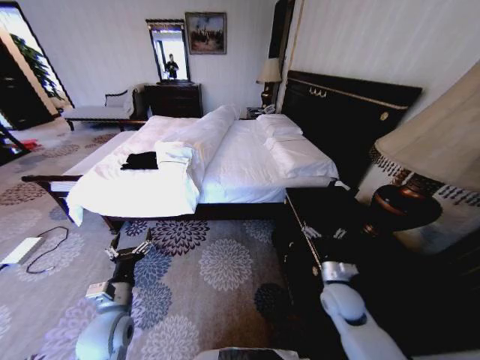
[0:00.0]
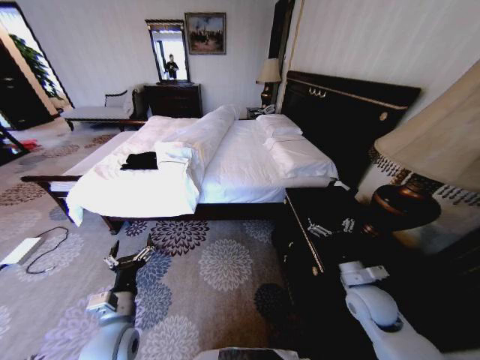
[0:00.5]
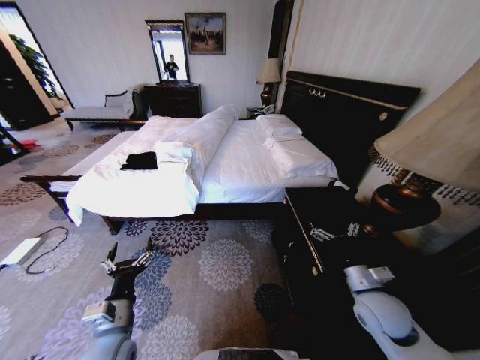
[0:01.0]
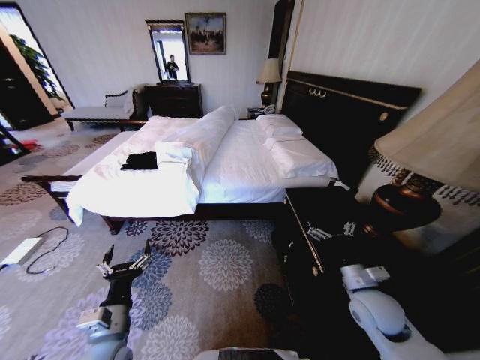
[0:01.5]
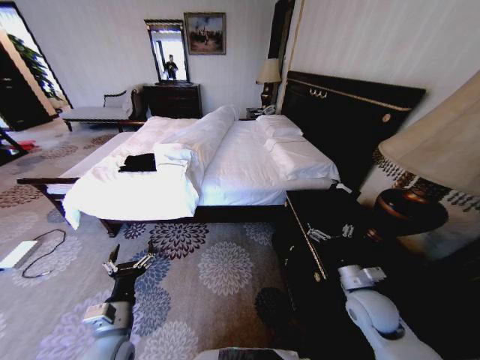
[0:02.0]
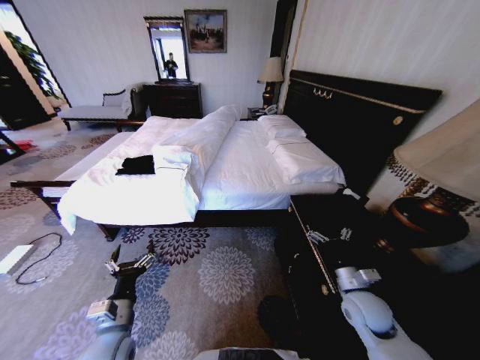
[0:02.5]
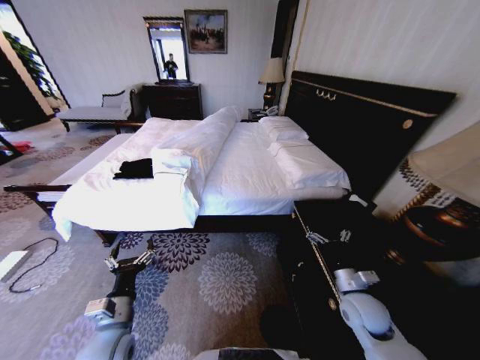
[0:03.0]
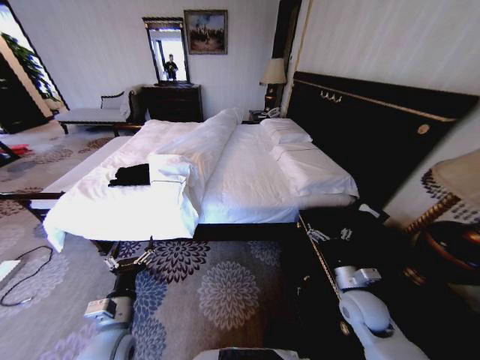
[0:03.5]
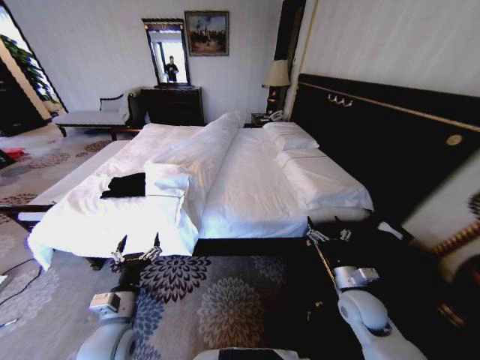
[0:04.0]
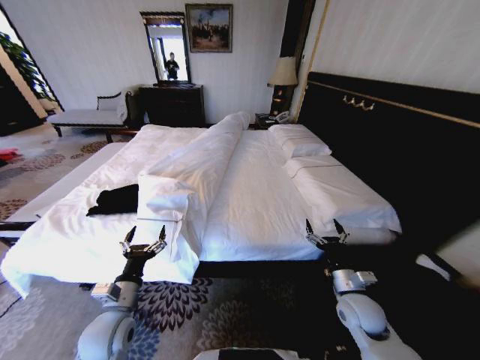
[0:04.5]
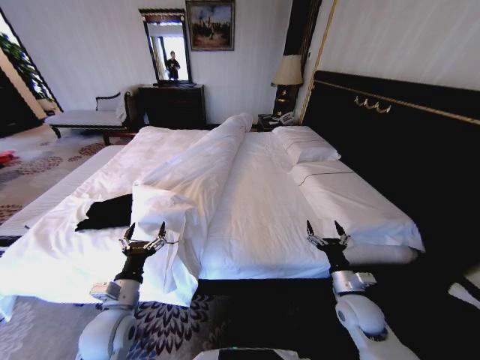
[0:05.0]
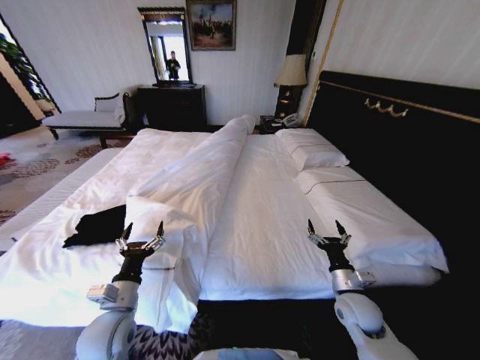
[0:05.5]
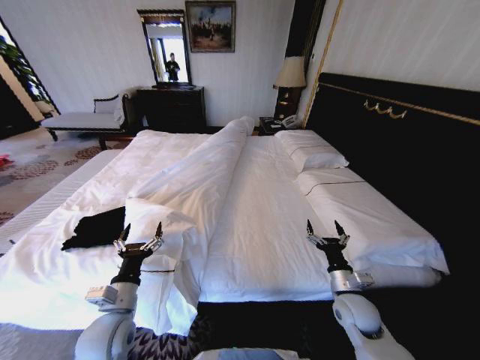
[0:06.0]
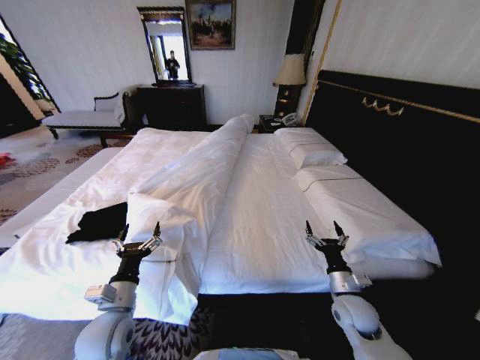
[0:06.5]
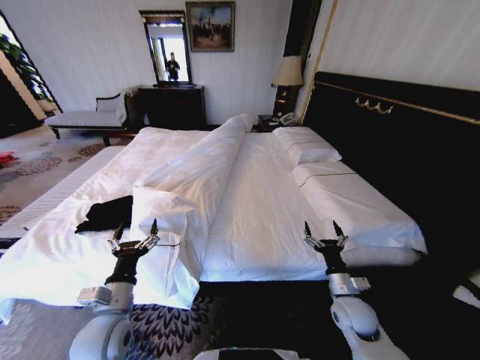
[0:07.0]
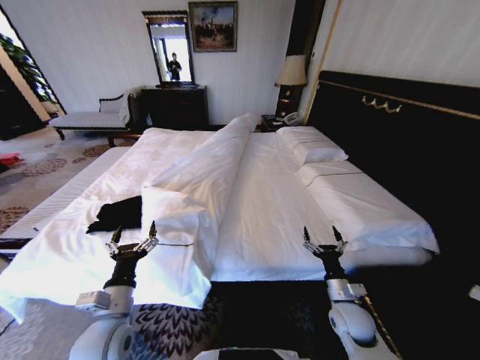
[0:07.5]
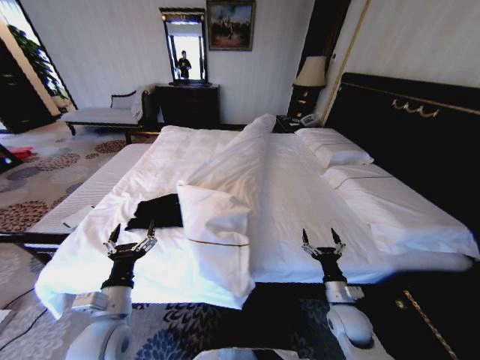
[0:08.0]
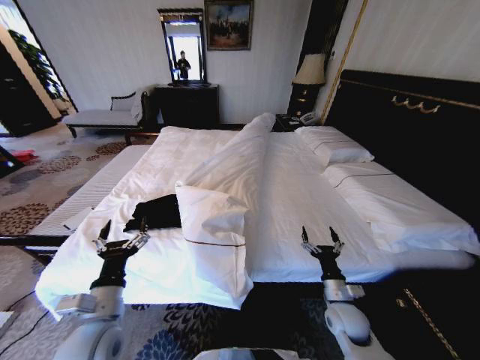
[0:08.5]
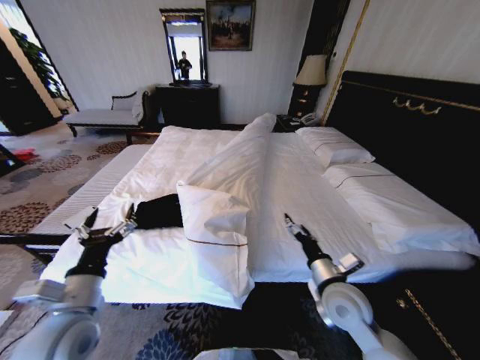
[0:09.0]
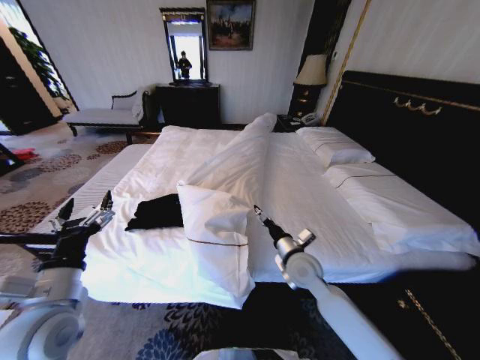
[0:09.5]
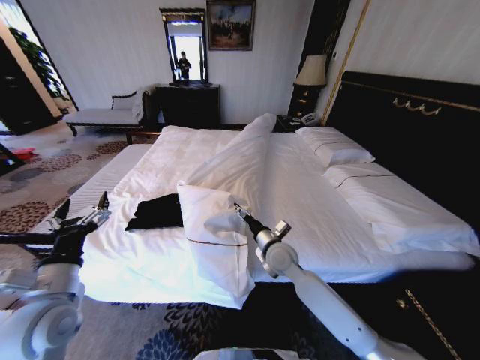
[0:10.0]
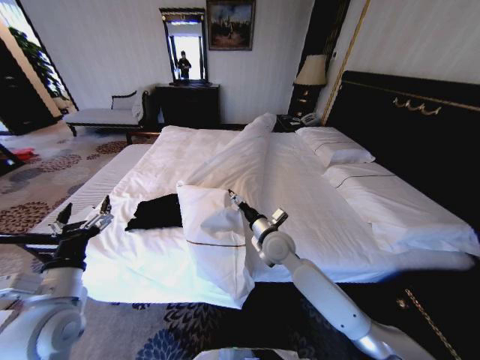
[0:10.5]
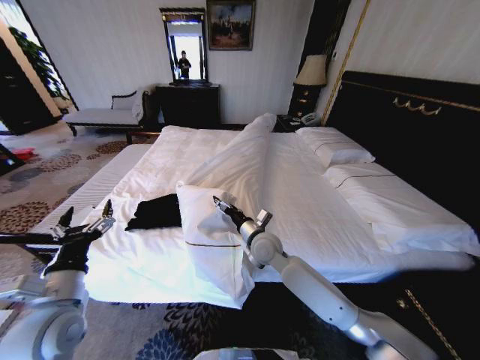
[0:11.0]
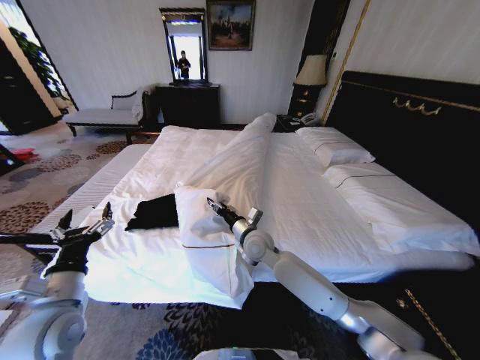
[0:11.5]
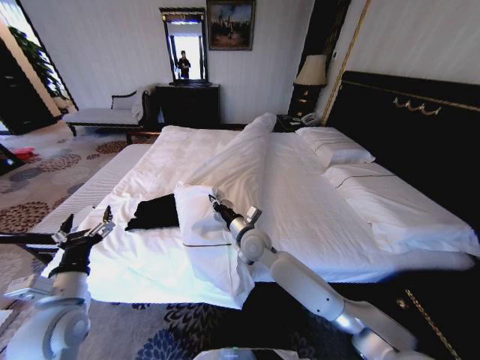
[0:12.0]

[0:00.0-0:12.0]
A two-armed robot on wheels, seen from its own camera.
Task of the whole recording: Fold the clothes on the bed.
0:08.0 to 0:10.0: The right gripper travels to the left, forward and upward by approximately 25 cm. The left gripper goes roughly 10 cm upward and to the left.
0:10.0 to 0:12.0: The right gripper is displaced to the left by approximately 10 cm, and closes.

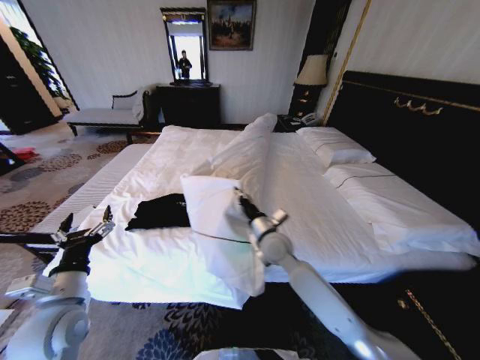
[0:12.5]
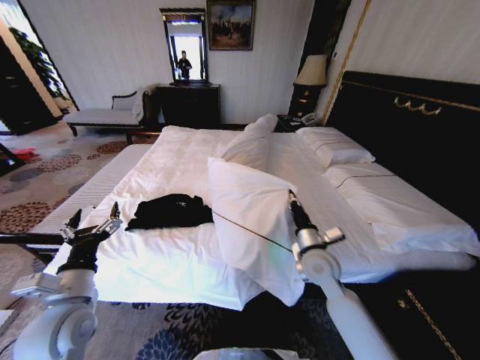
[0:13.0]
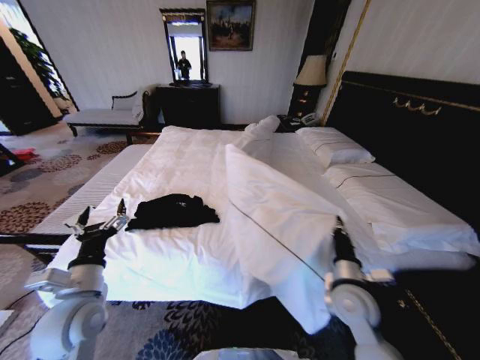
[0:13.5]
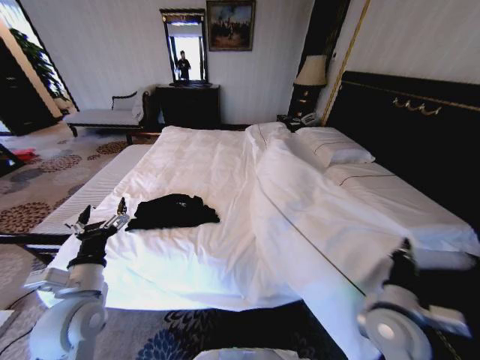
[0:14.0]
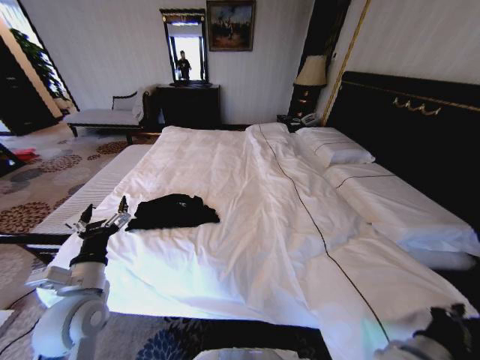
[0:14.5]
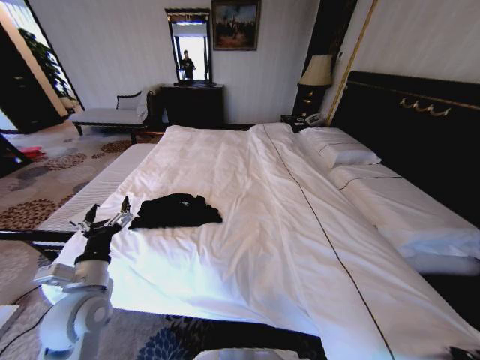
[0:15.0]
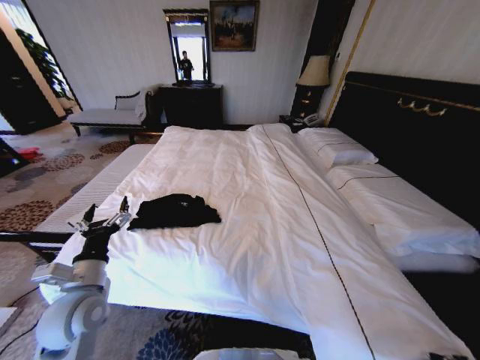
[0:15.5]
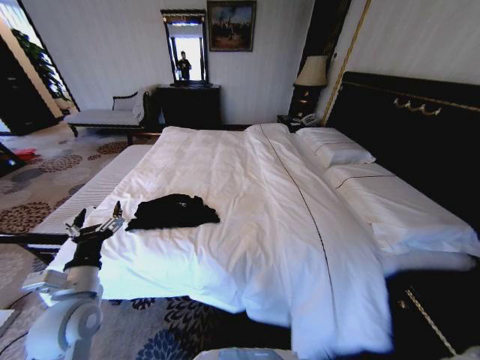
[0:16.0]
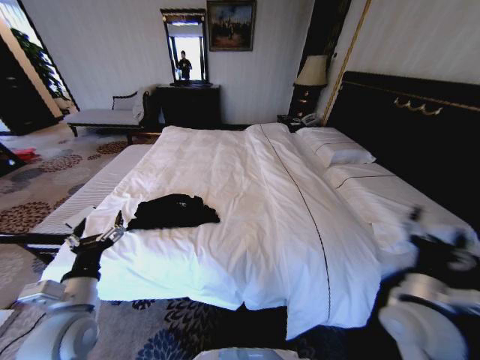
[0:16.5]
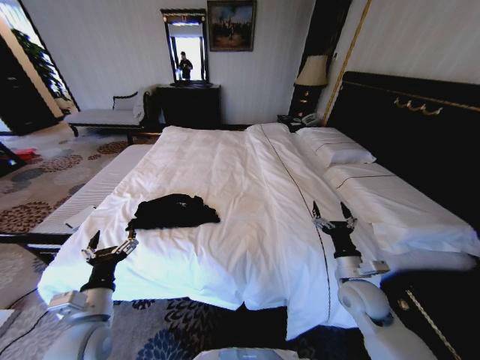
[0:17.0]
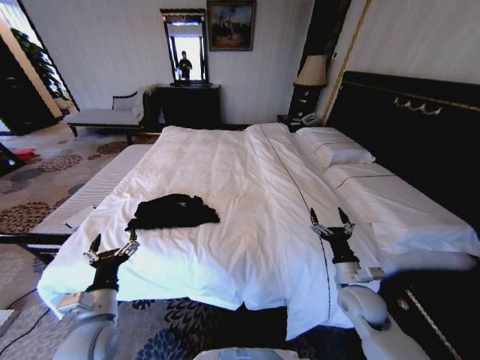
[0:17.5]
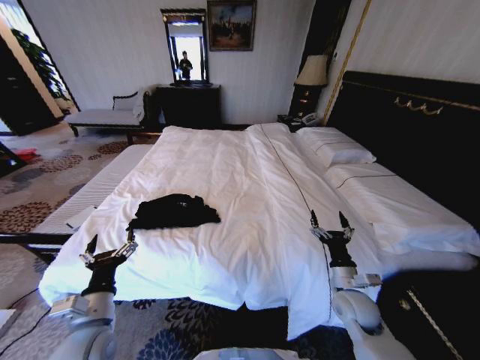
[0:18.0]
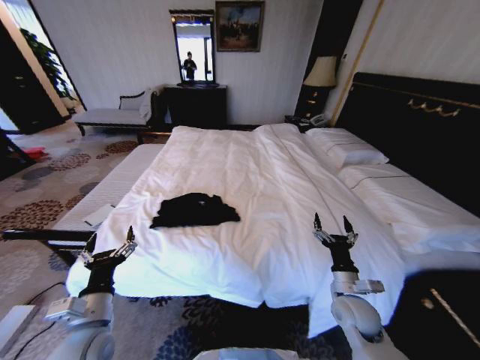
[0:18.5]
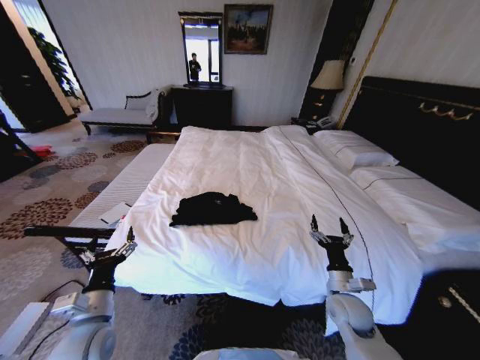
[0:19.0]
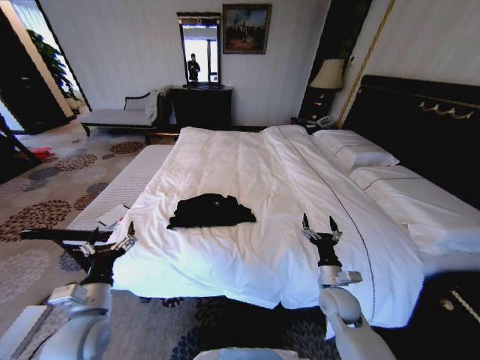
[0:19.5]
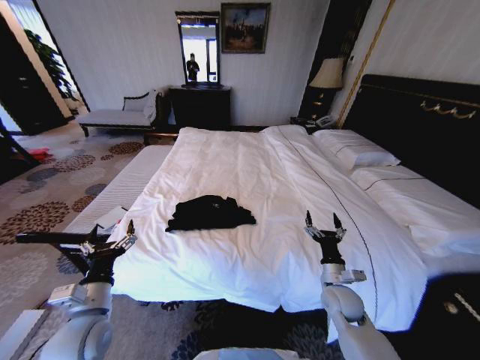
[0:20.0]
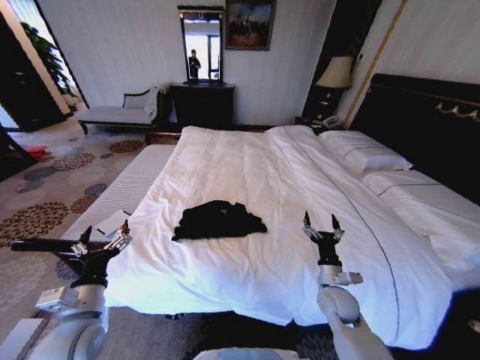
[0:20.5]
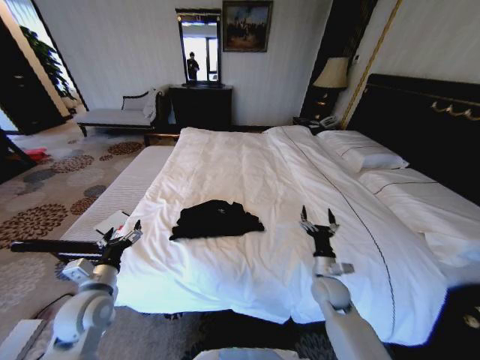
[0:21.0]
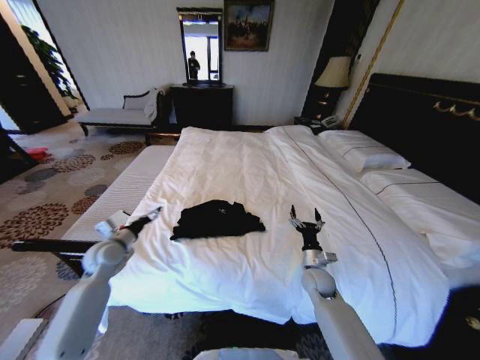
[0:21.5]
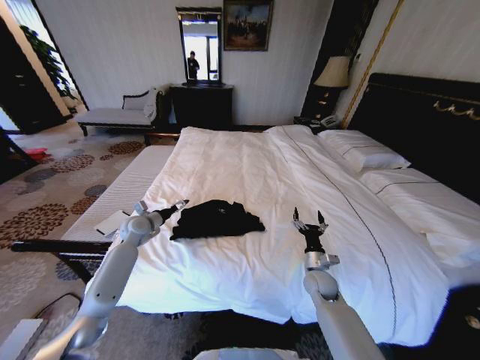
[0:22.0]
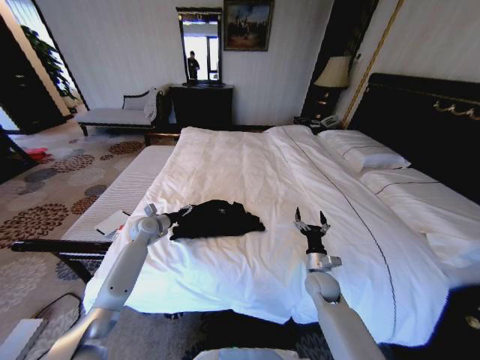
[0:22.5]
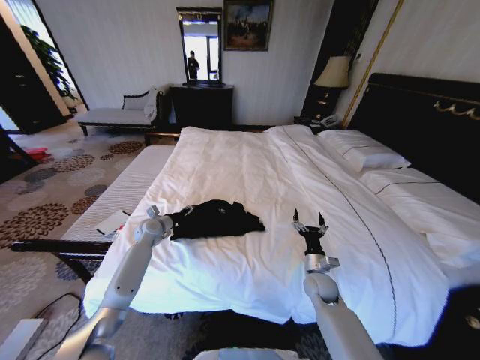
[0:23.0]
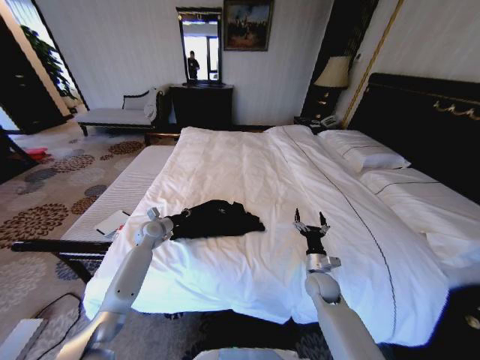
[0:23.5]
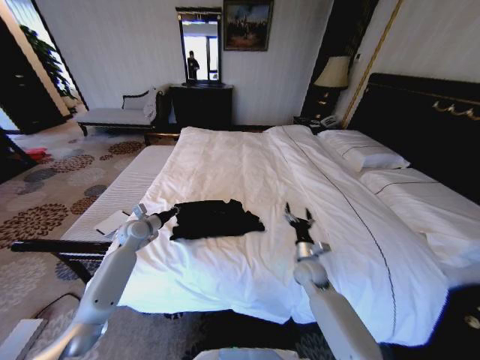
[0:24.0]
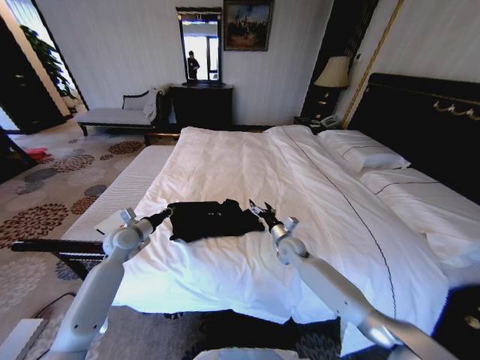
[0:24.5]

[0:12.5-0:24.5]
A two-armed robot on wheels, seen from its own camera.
Task of the whole recording: Fold the clothes on the bed.
0:12.5 to 0:14.5: The right gripper goes approximately 35 cm backward and to the right.
0:14.5 to 0:16.5: The right gripper is displaced upward and forward by about 10 cm, and opens its fingers.
0:16.5 to 0:18.5: The right gripper shifts approximately 10 cm downward.
0:20.5 to 0:22.5: The left gripper is displaced forward by some 35 cm. The right gripper travels forward by about 5 cm.
0:22.5 to 0:24.5: The left gripper travels backward by about 10 cm, and closes; the right gripper travels forward and to the left by some 15 cm.

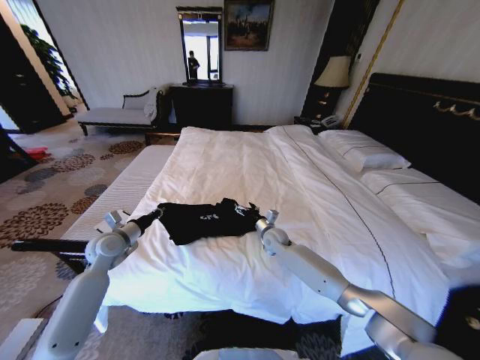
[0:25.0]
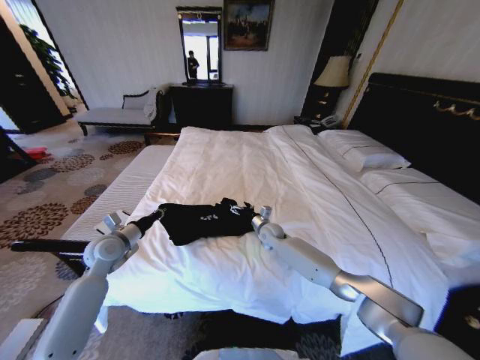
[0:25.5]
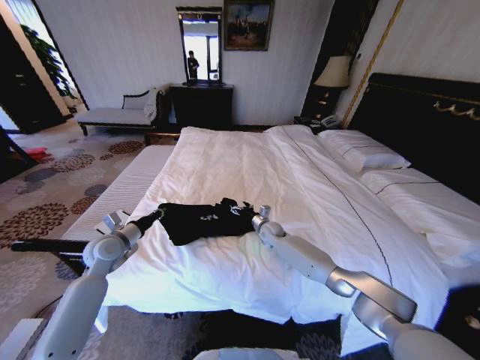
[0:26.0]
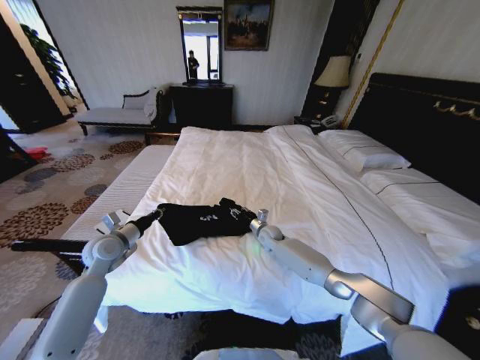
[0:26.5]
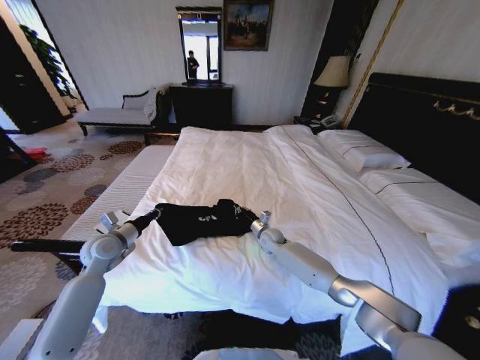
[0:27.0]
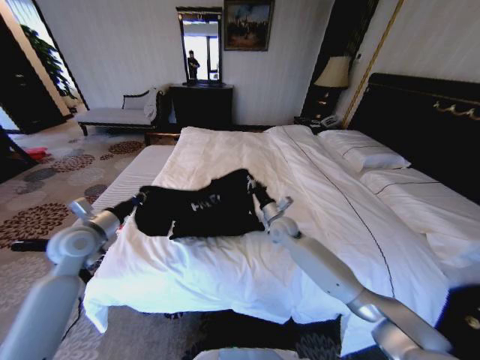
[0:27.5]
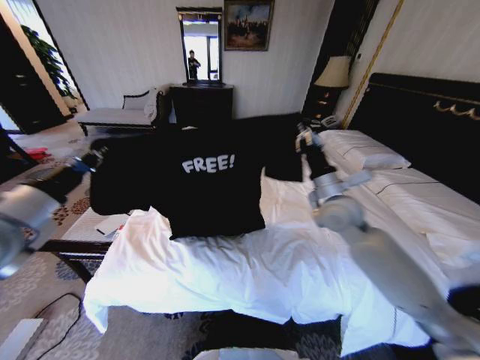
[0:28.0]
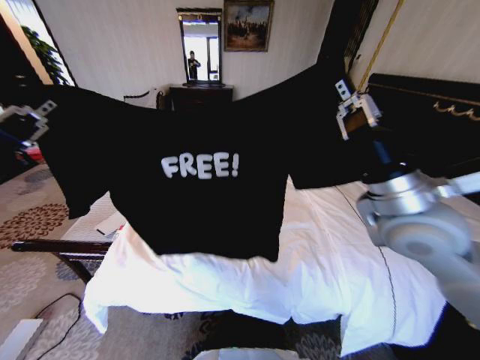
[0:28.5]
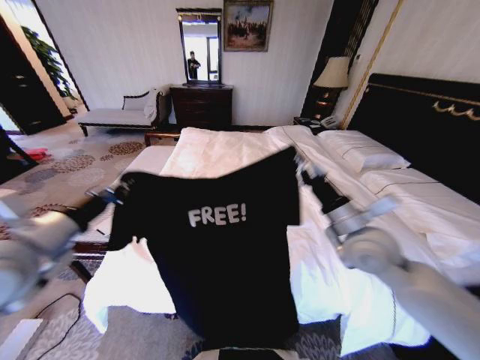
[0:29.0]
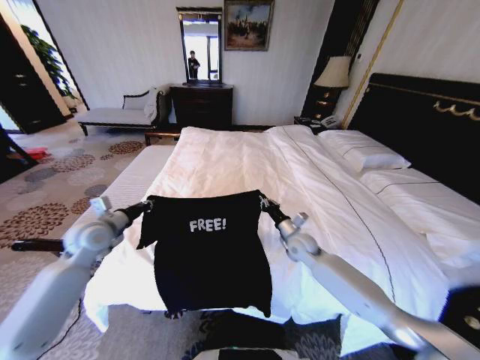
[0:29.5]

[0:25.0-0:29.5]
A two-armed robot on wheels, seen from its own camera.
Task of the whole recording: Fold the clothes on the bed.
0:25.0 to 0:27.0: The right gripper closes.
0:27.0 to 0:29.5: The right gripper goes about 10 cm backward and to the right, and goes upward and returns, some 35 cm each way, while the left gripper reaches about 25 cm upward, then returns.
